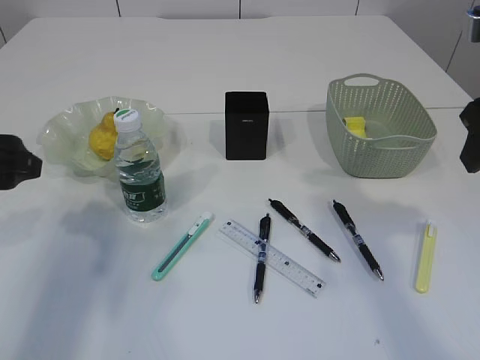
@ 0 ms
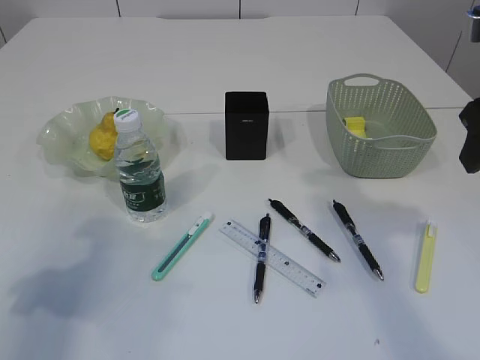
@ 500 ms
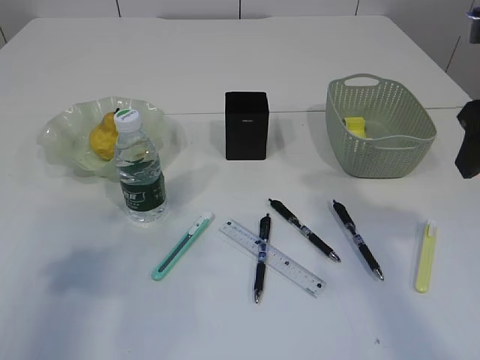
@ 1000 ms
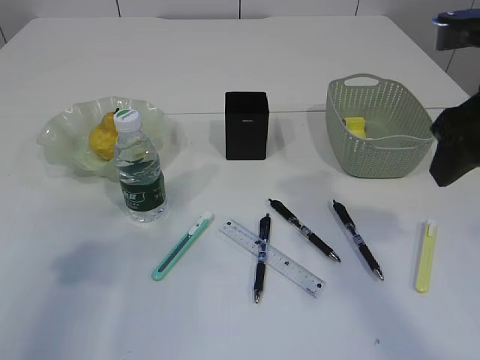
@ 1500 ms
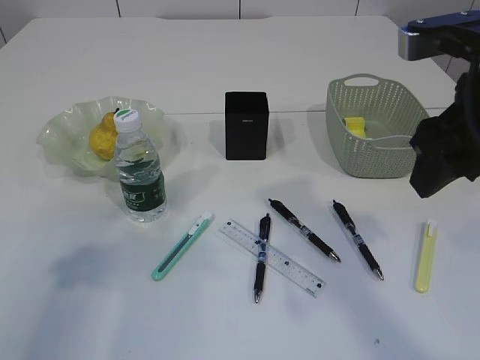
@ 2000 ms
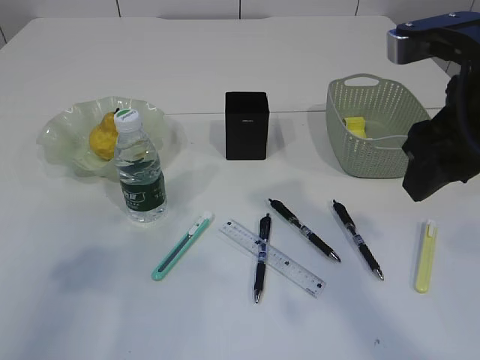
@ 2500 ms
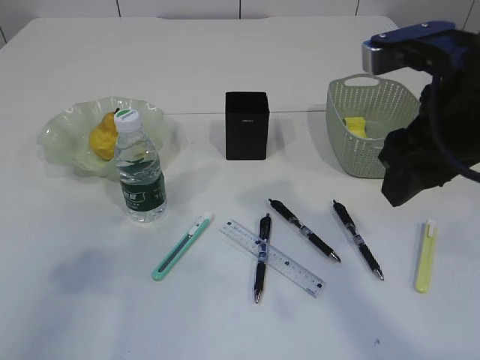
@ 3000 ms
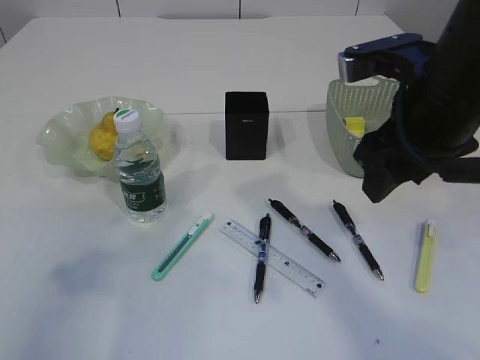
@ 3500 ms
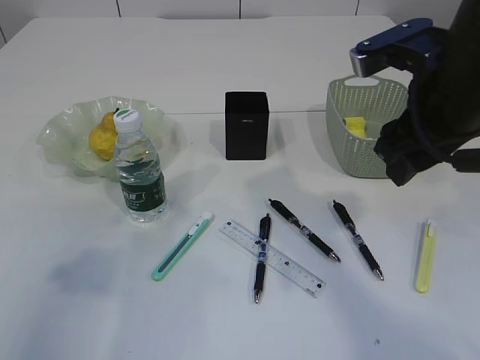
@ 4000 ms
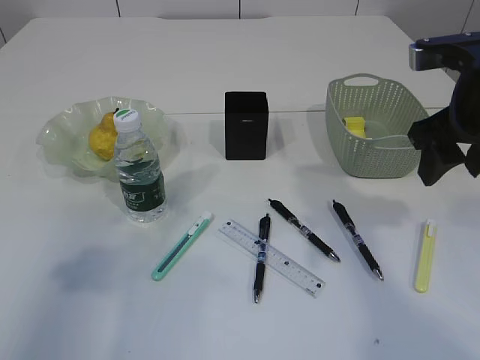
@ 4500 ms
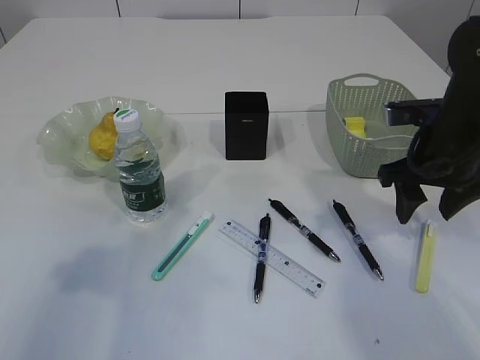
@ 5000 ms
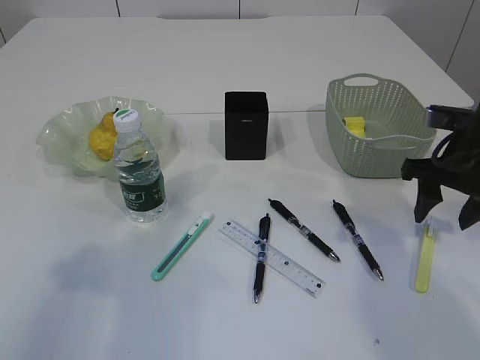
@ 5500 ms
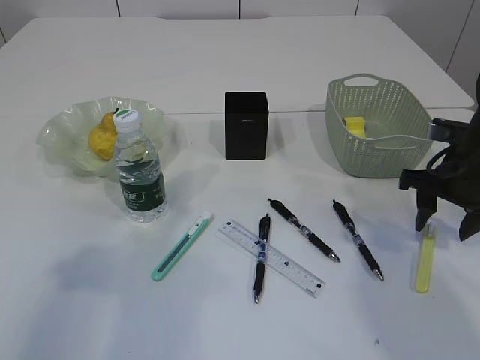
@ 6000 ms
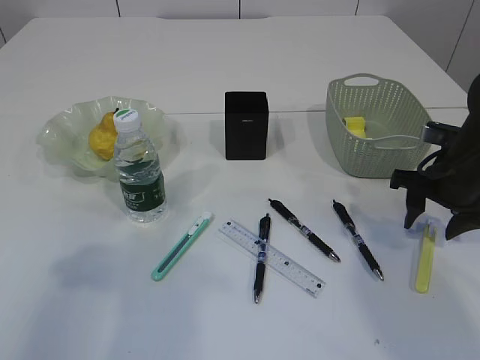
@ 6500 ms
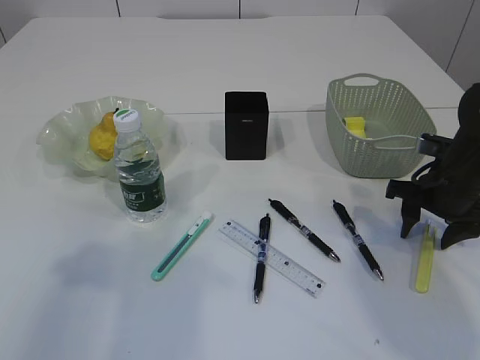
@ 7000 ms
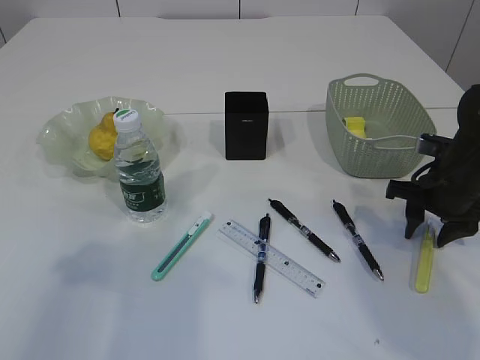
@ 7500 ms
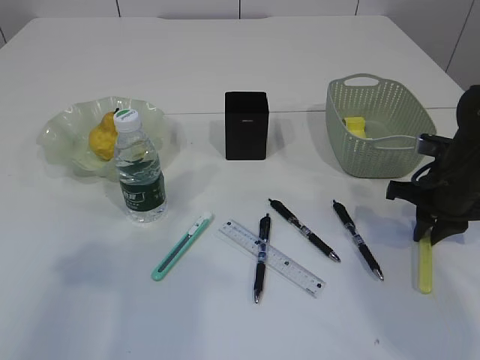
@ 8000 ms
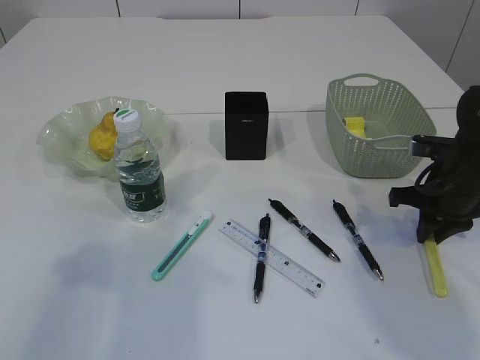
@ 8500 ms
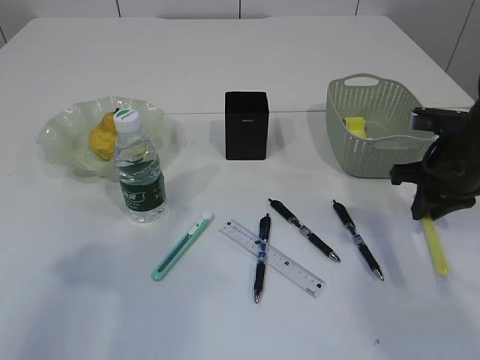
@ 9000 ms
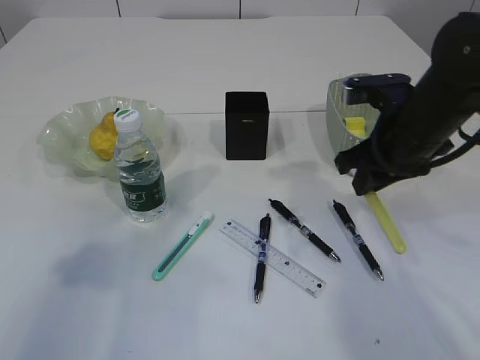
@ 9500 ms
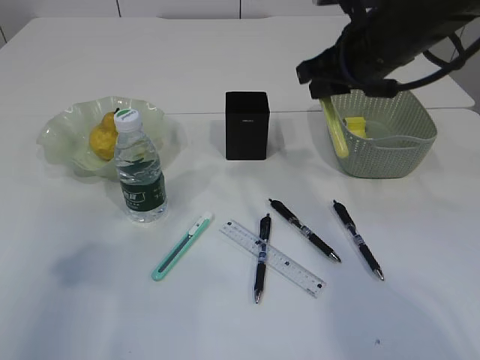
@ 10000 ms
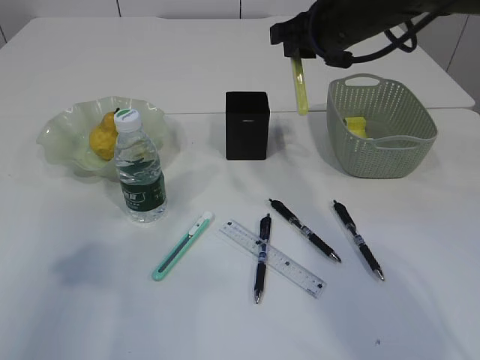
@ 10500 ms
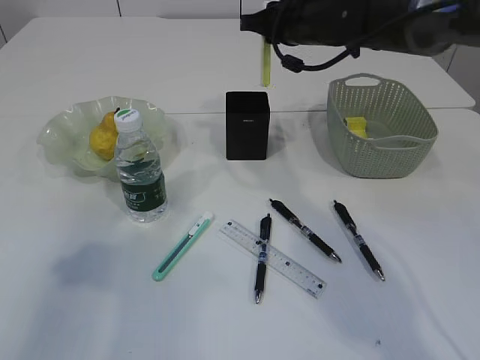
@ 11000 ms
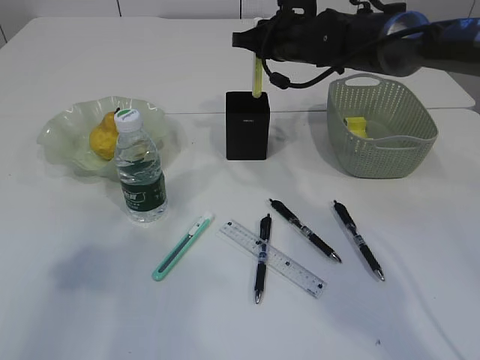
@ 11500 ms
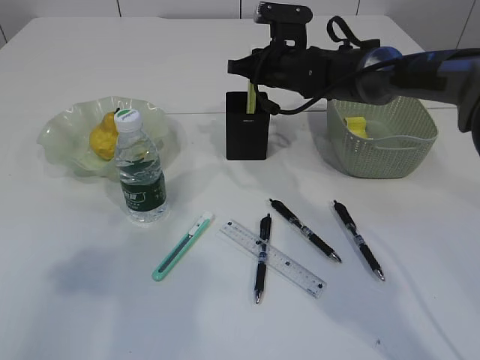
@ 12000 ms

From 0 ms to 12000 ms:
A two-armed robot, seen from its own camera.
Step, from 0 ms to 9500 ms: pick up the yellow knife.
From 0 ms to 2000 ms: The right gripper is displaced to the left by roughly 5 cm; the left gripper travels backward and upward by approximately 10 cm.
From 2000 ms to 4000 ms: There are only small adjustments of the grippers.
From 4000 ms to 6000 ms: The right gripper moves downward and to the right, roughly 15 cm.
From 6000 ms to 8000 ms: The right gripper closes its fingers.
From 8000 ms to 10000 ms: The right gripper moves upward and to the left, roughly 20 cm.
From 10000 ms to 12000 ms: The right gripper moves forward, downward and to the left, approximately 20 cm.

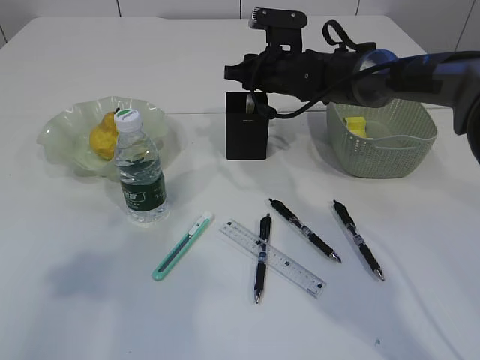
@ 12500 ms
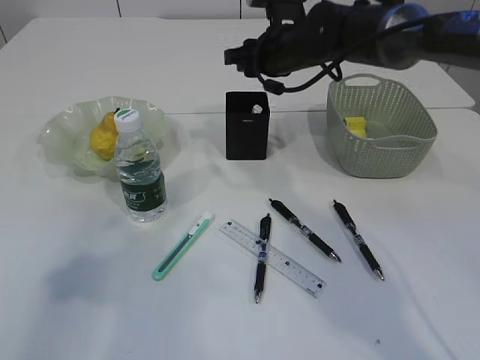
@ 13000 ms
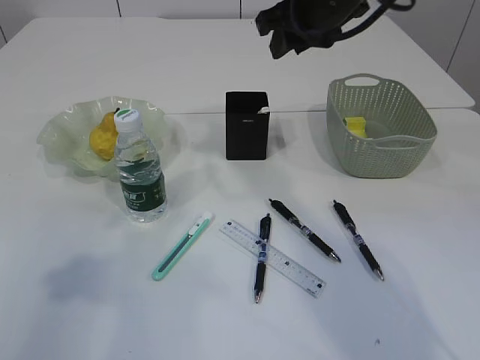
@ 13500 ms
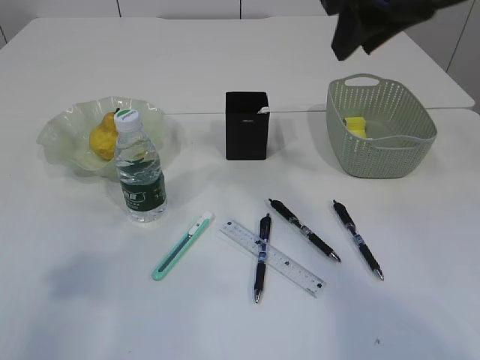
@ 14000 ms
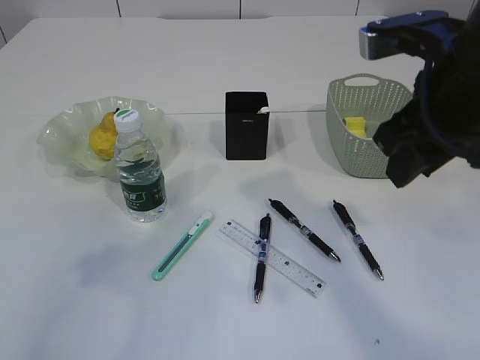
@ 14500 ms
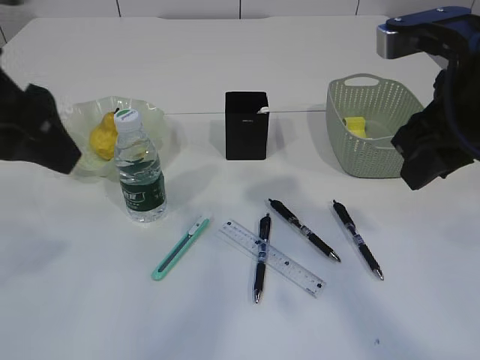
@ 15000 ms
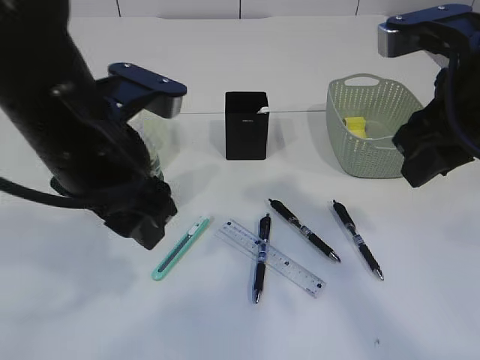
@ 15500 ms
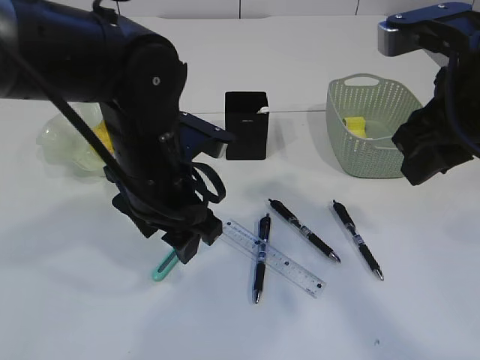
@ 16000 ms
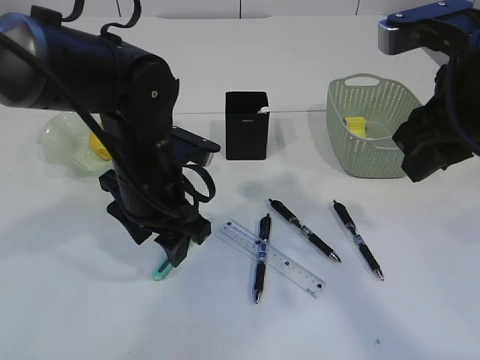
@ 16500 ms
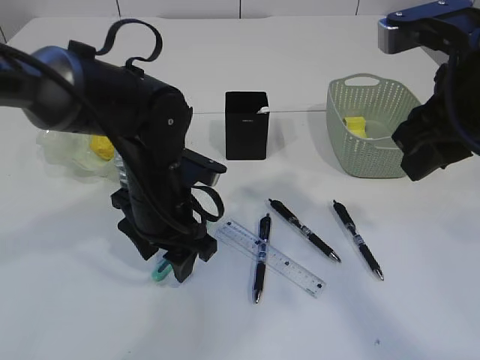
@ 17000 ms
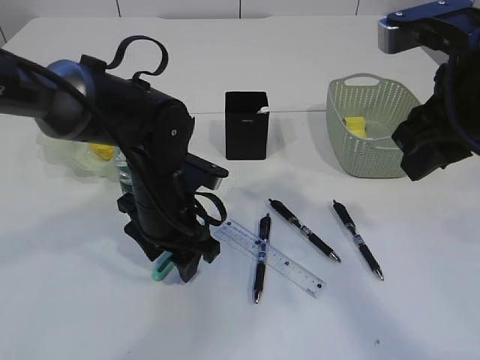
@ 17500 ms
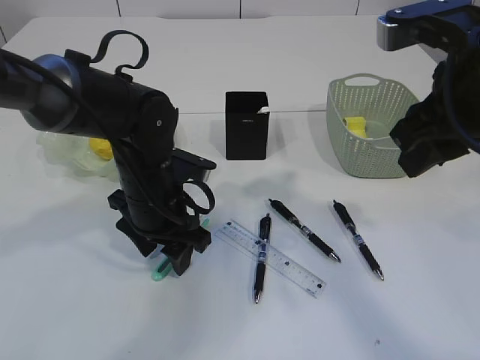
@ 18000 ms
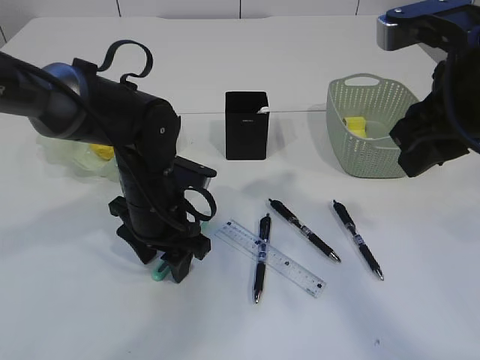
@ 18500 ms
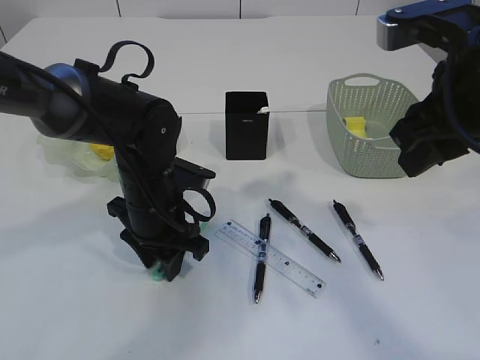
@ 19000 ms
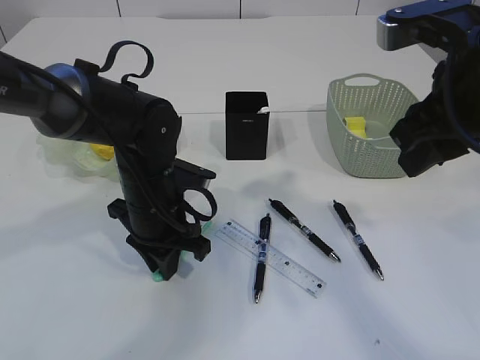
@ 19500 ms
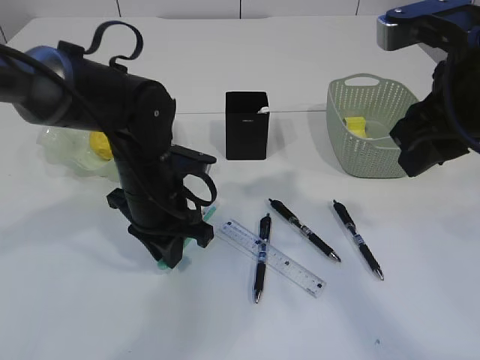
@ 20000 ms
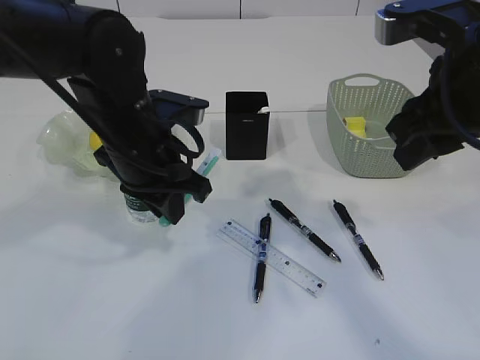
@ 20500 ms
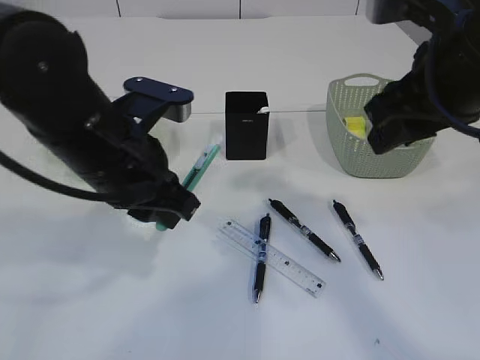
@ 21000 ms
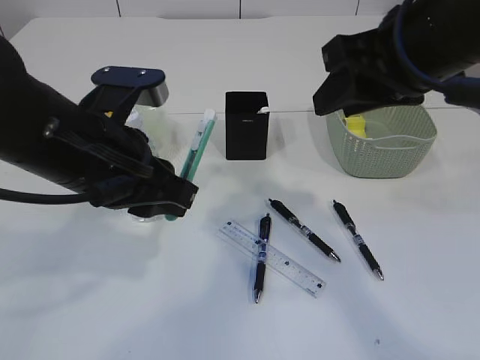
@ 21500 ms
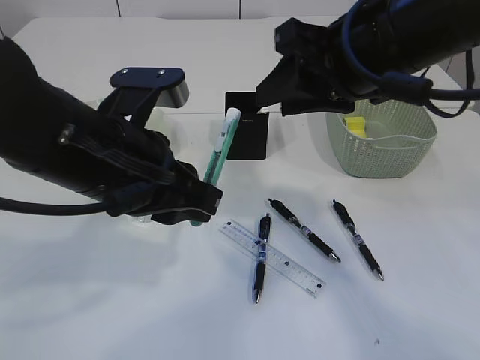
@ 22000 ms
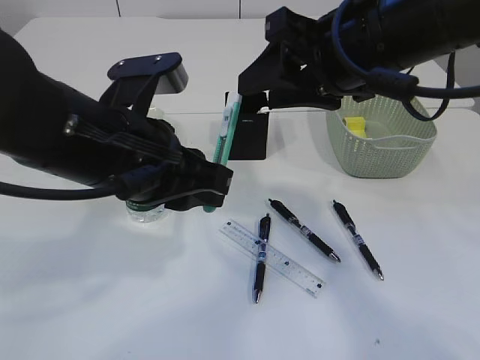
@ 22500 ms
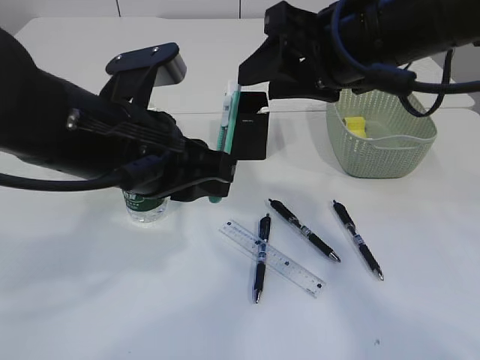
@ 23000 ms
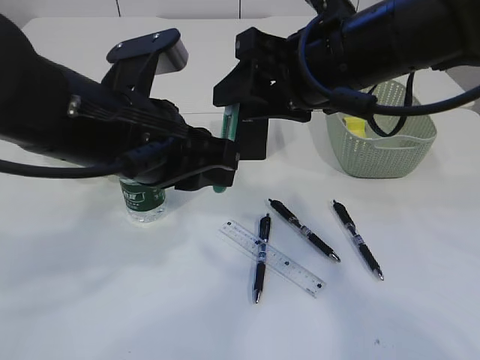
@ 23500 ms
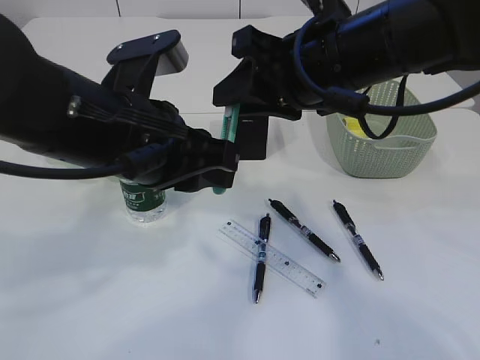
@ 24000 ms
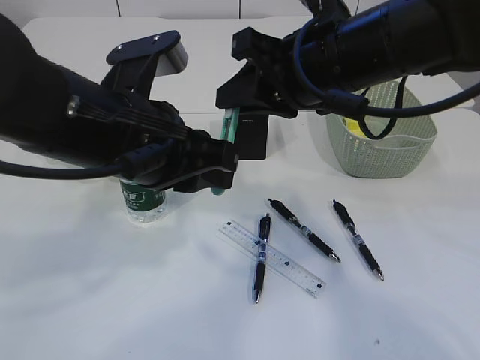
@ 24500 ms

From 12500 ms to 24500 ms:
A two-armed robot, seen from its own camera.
Step, from 13500 ms to 20000 ms: pick up the blue knife.
From 12500 ms to 14500 ms: The right gripper heads backward and upward, covering roughly 30 cm.
From 14500 ms to 16500 ms: The left gripper is displaced to the right, downward and forward by about 30 cm.
From 16500 ms to 18500 ms: The left gripper heads downward, covering roughly 5 cm.
From 18500 ms to 20500 ms: The left gripper heads upward, covering some 10 cm, and closes.
From 20500 ms to 22500 ms: The right gripper shifts approximately 5 cm to the left. Meanwhile the left gripper moves backward, some 10 cm.
From 22500 ms to 24500 ms: The right gripper closes its fingers.

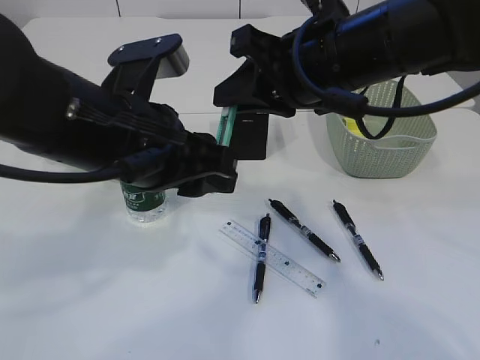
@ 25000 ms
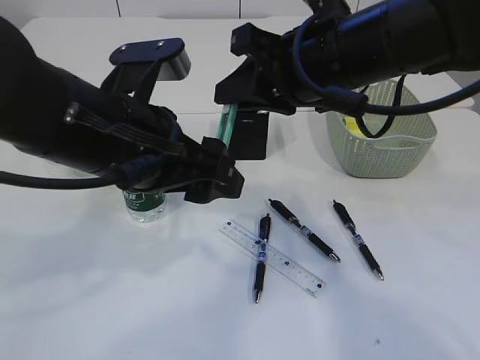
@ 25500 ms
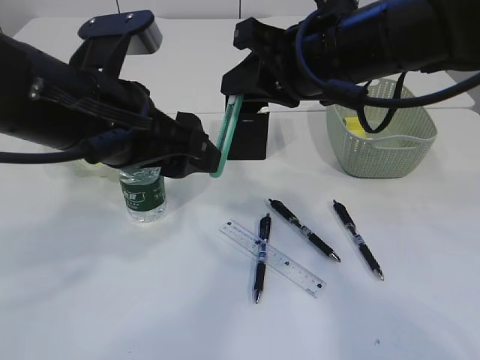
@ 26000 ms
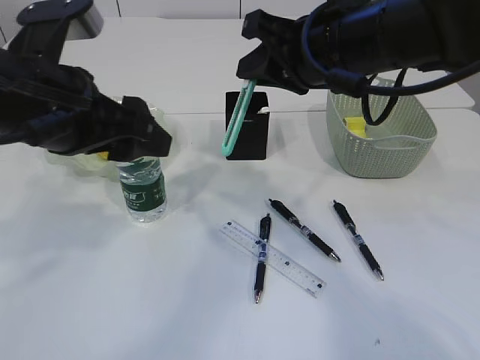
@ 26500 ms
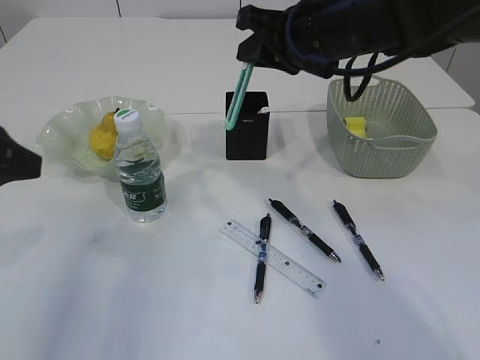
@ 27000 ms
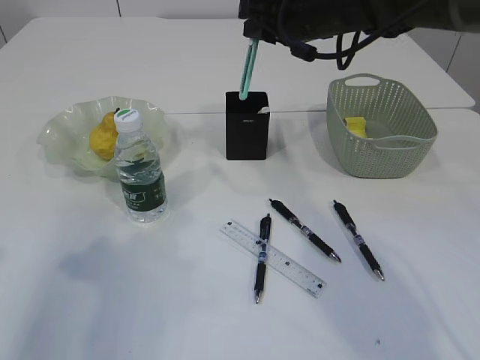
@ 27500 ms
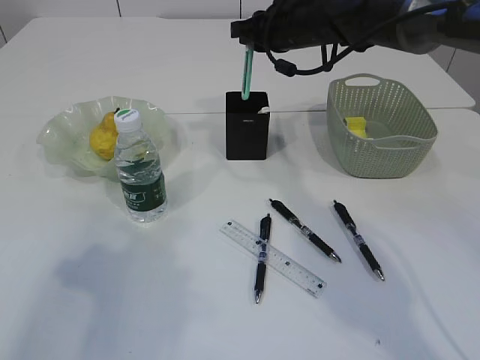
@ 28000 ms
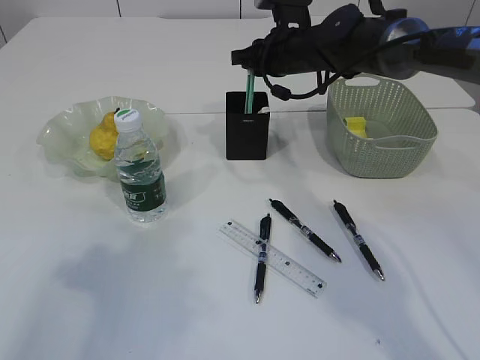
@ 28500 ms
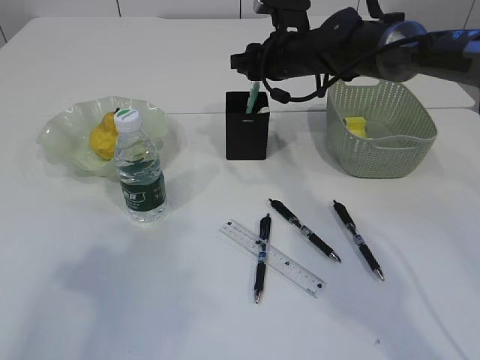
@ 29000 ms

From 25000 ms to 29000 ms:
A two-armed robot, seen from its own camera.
From 25000 ms to 27000 ms: The right gripper is displaced forward by about 10 cm. Meanwhile the left gripper heads to the left, covering roughly 15 cm, and opens its fingers.
From 27000 ms to 29000 ms: The right gripper travels forward and downward by some 15 cm, and opens its fingers, while the left gripper changes place by roughly 5 cm.
